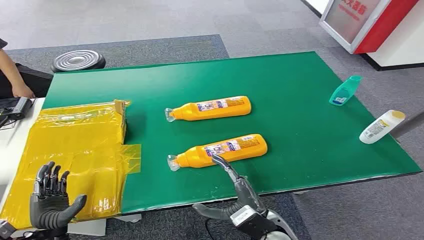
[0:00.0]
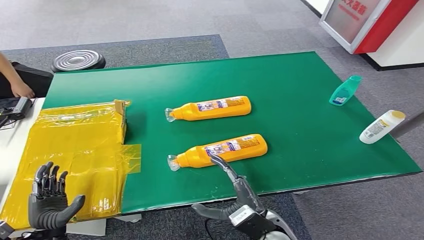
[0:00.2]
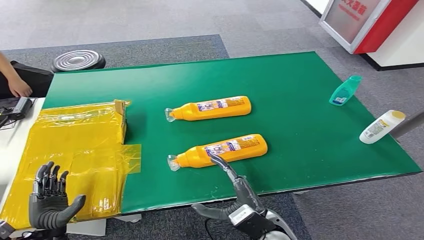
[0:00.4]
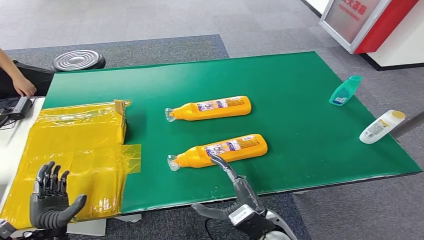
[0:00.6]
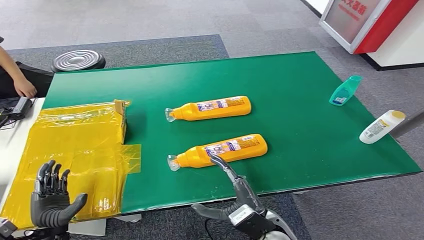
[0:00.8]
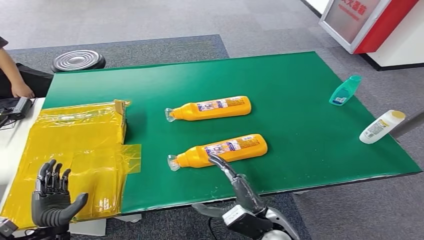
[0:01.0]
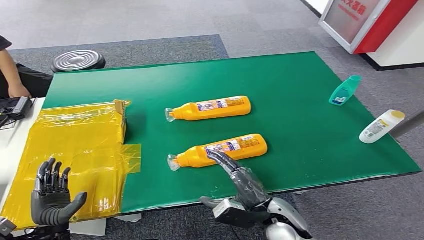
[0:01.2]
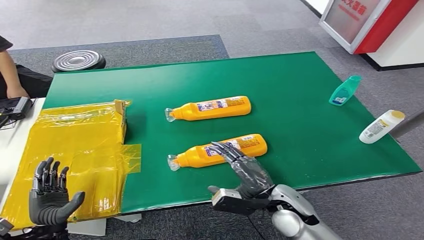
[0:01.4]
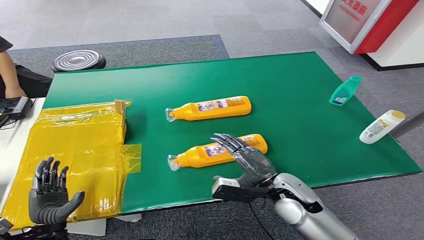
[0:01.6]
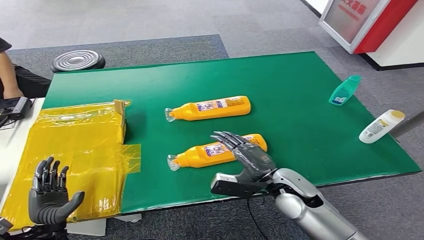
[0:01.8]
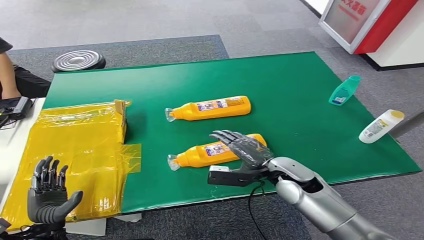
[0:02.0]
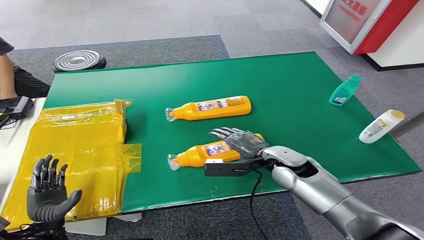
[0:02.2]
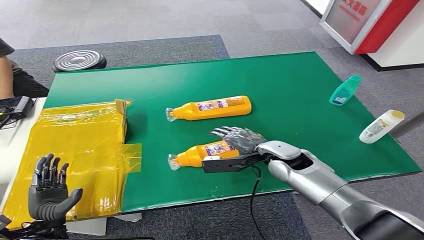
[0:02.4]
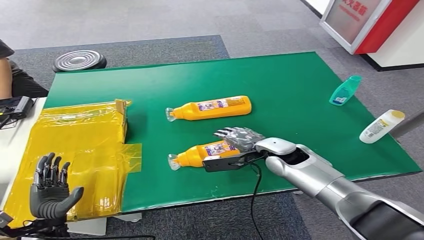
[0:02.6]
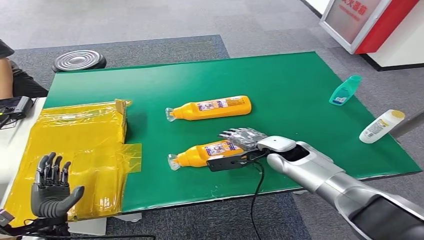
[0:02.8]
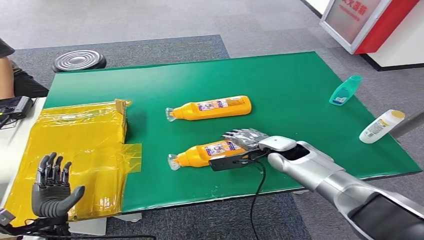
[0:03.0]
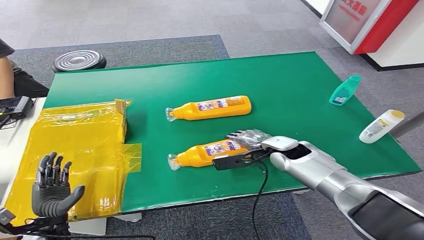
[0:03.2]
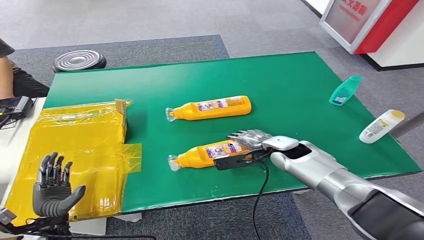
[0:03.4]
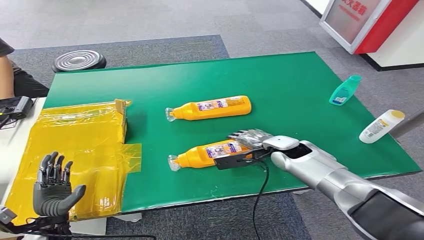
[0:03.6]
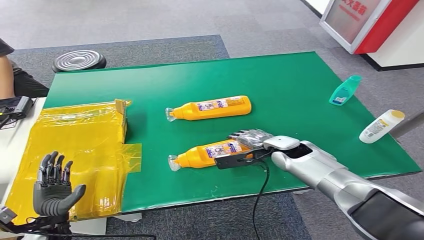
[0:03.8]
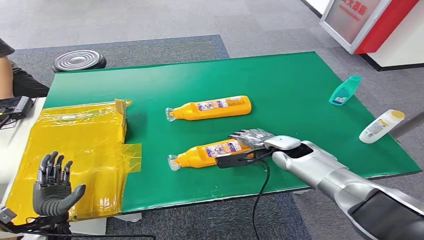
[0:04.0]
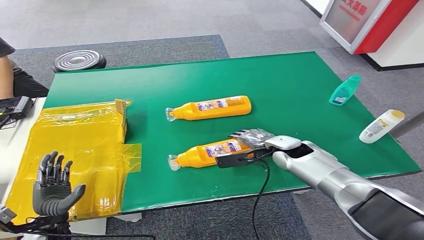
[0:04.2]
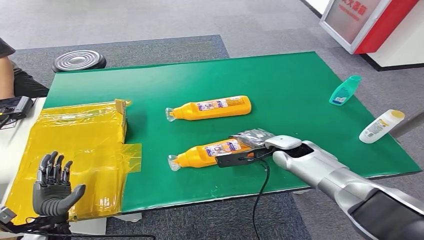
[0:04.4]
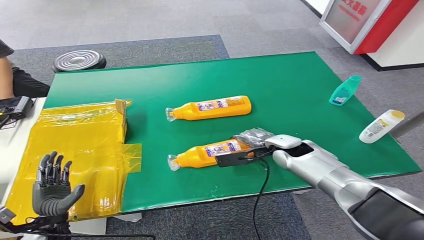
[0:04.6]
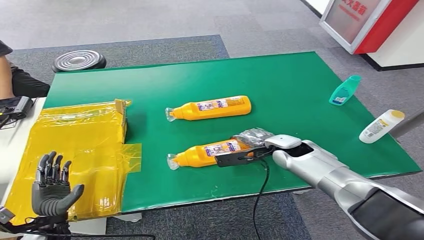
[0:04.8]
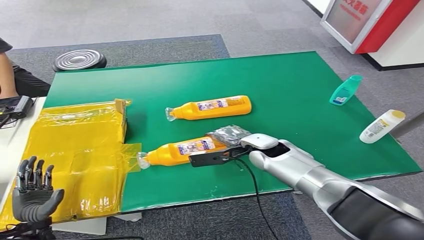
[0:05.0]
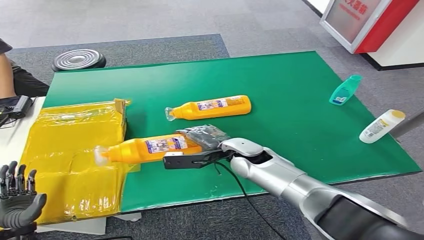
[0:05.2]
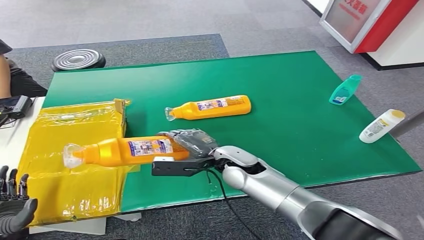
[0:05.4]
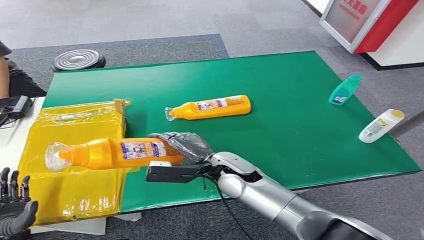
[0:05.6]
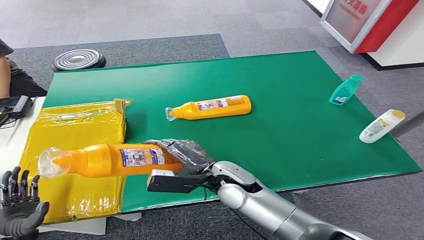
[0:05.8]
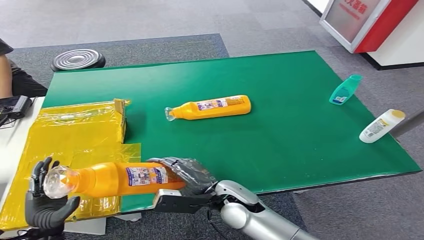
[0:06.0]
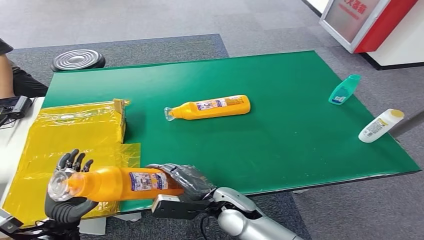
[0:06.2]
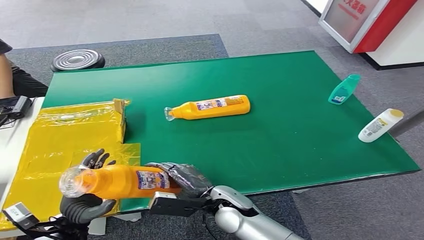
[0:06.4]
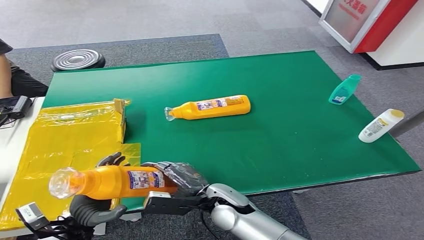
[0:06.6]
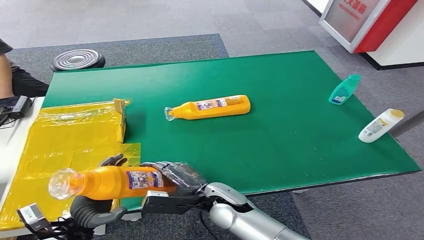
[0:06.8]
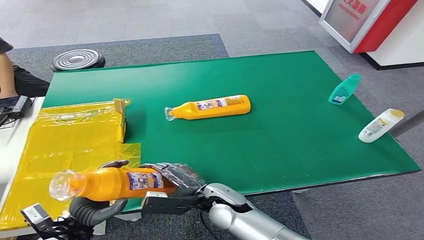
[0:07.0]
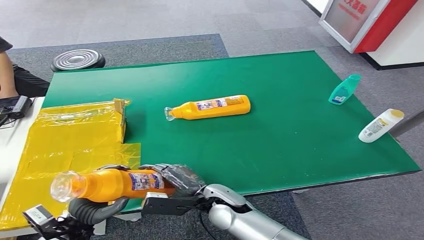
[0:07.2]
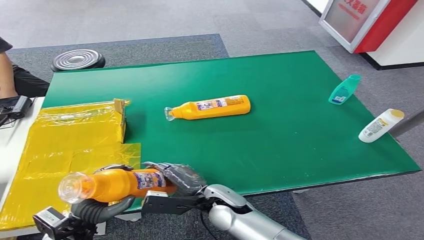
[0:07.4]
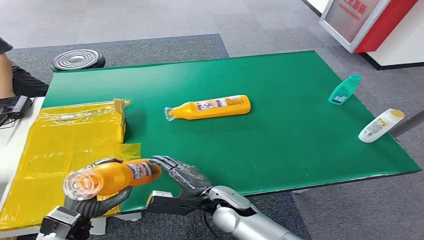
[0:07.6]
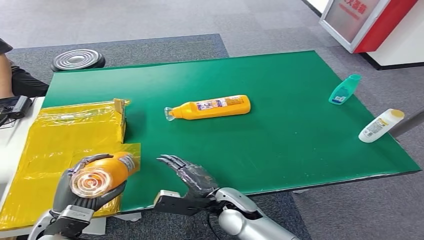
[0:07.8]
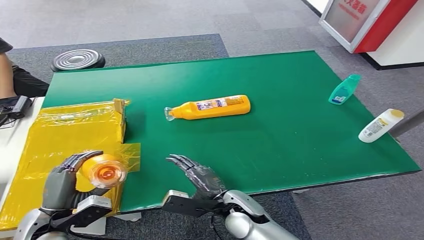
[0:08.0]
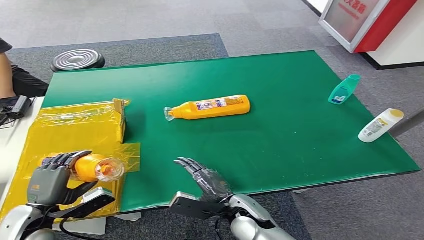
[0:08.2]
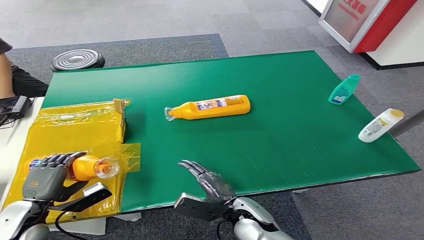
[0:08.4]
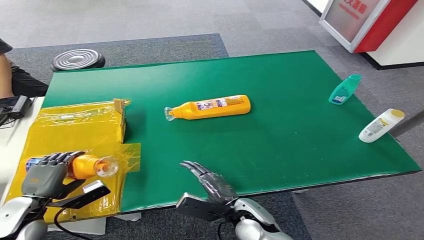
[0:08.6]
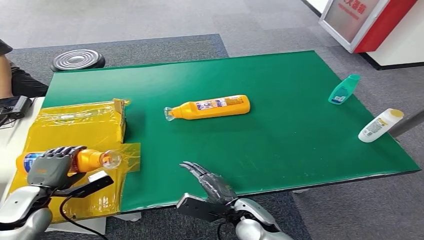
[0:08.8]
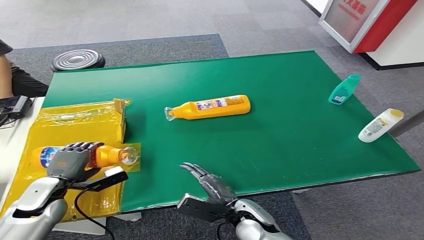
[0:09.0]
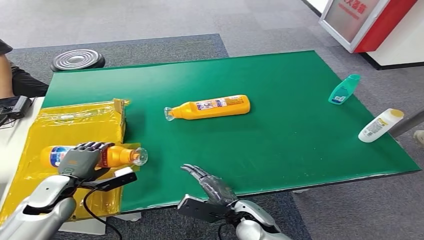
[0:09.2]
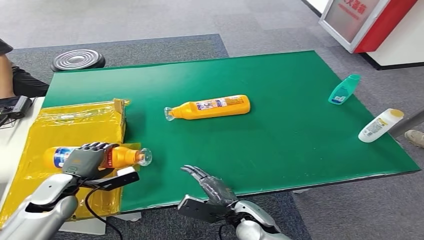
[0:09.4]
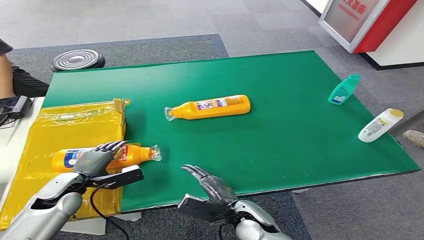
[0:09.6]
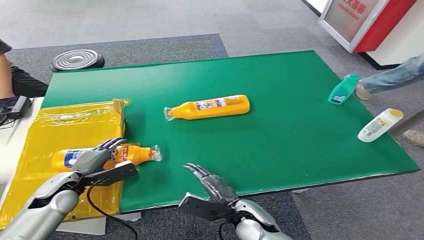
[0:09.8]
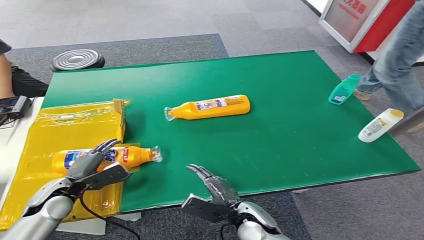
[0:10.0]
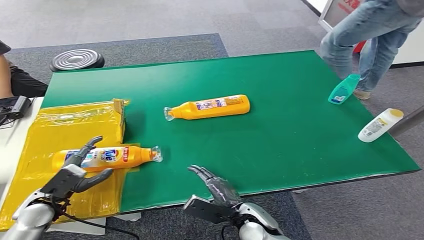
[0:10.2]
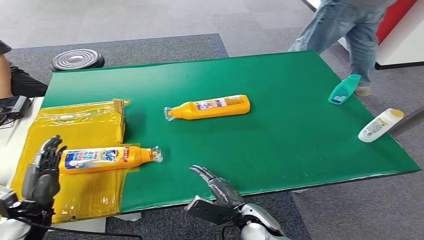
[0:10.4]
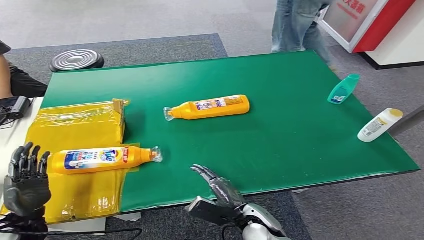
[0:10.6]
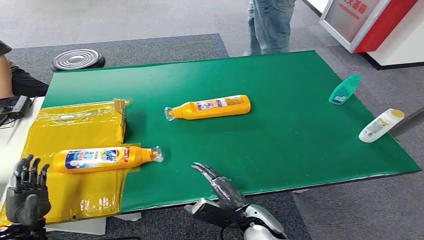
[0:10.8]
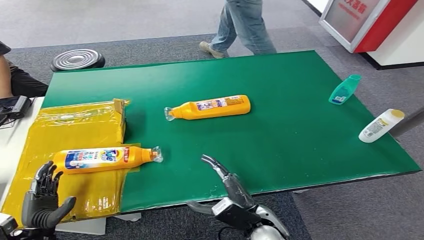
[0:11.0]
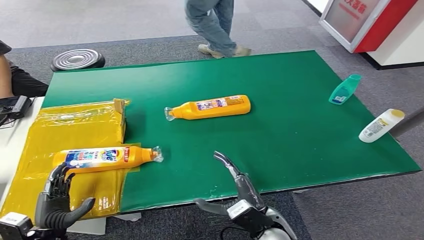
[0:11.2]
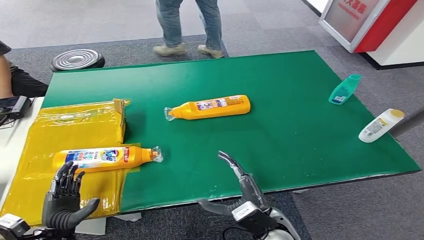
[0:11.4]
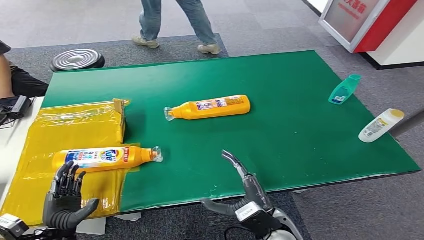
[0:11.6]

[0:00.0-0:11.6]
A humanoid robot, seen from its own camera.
Step, 0:00.0 to 0:05.2: Pick up the bottle from the table.
Step, 0:05.6 to 0:11.6: Turn the bottle to the front side.
0:01.4 to 0:02.8: The right hand goes some 15 cm forward.
0:02.8 to 0:04.4: The hands move only a little.
0:05.8 to 0:07.2: The left hand shifts some 10 cm to the right. The right hand shifts approximately 5 cm downward.
0:07.2 to 0:08.8: The left hand goes about 15 cm to the left and forward. Meanwhile the right hand shifts approximately 5 cm to the right.
0:10.2 to 0:11.6: The right hand ends up some 5 cm from where it was. Meanwhile the left hand heads backward and downward, covering roughly 10 cm.

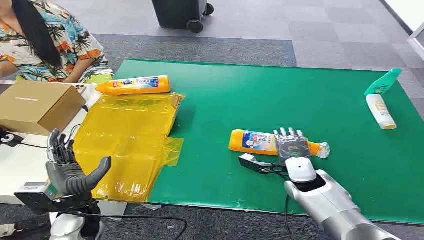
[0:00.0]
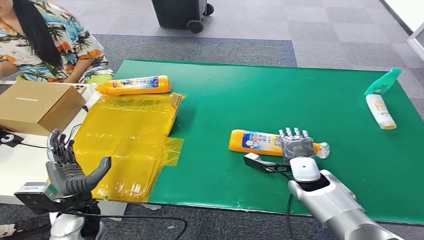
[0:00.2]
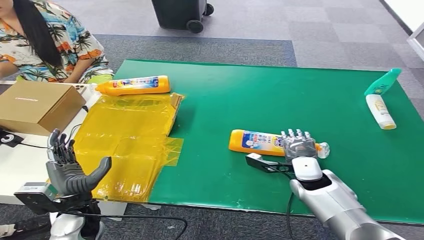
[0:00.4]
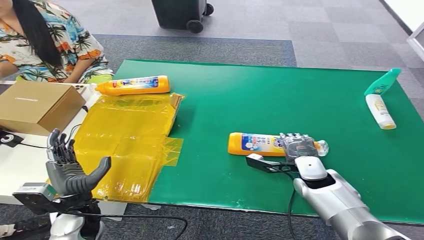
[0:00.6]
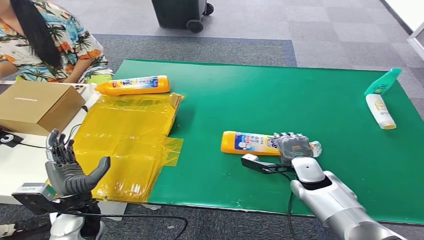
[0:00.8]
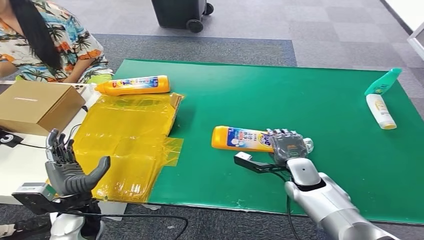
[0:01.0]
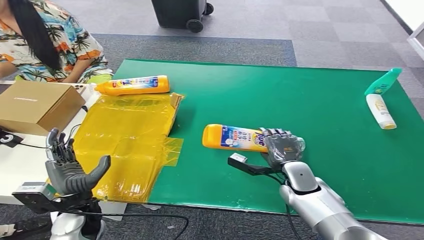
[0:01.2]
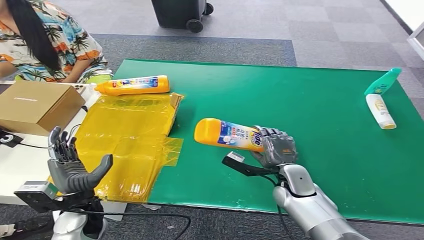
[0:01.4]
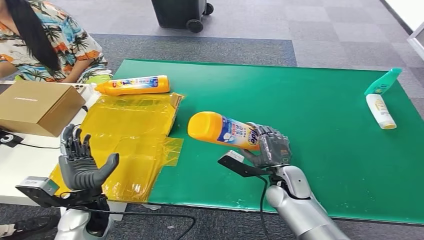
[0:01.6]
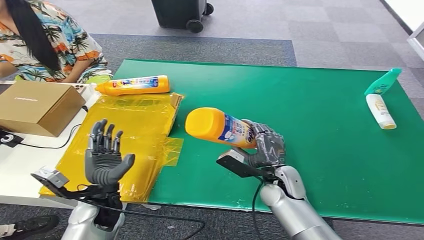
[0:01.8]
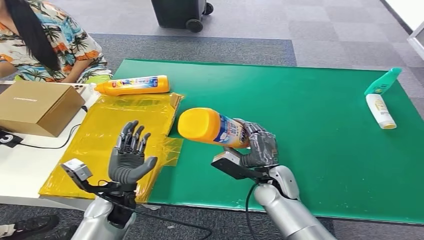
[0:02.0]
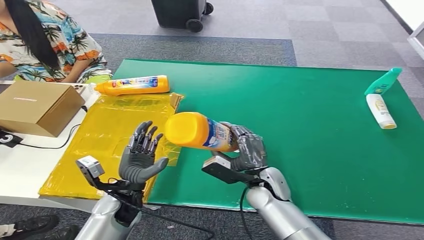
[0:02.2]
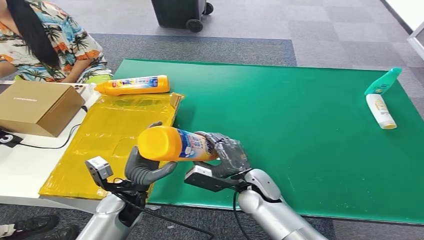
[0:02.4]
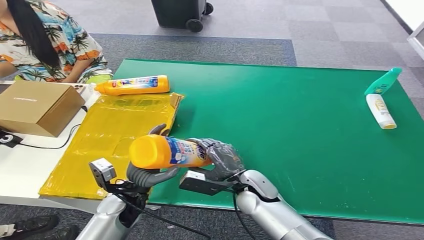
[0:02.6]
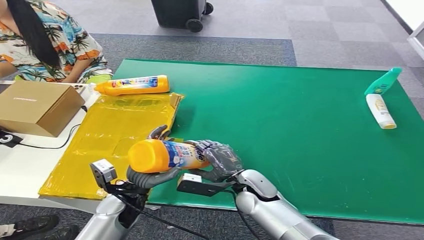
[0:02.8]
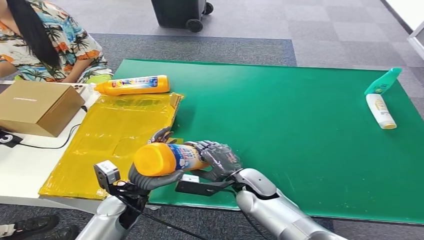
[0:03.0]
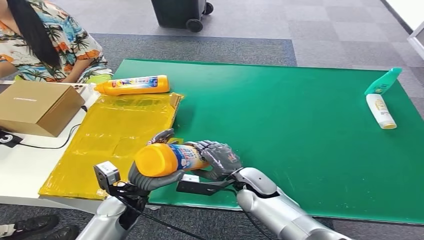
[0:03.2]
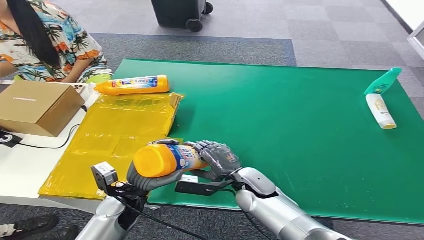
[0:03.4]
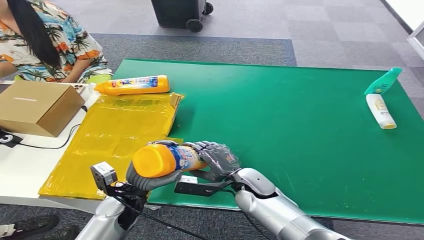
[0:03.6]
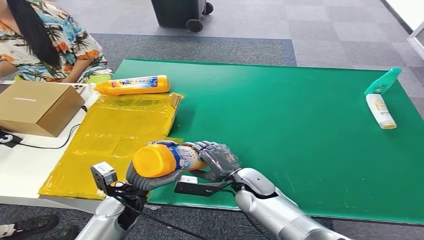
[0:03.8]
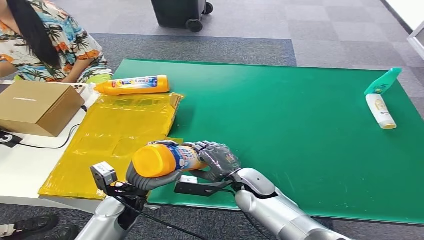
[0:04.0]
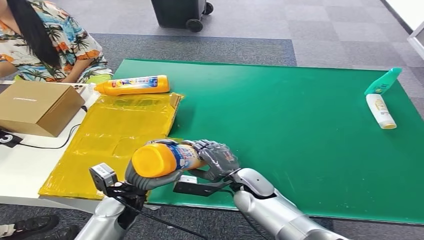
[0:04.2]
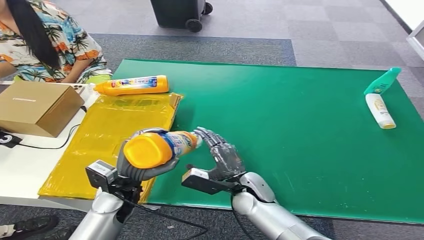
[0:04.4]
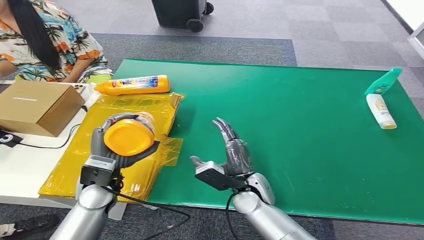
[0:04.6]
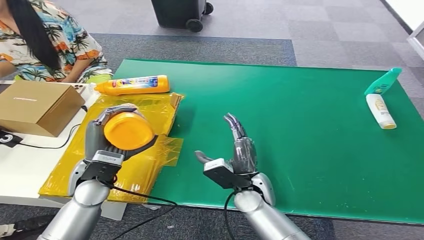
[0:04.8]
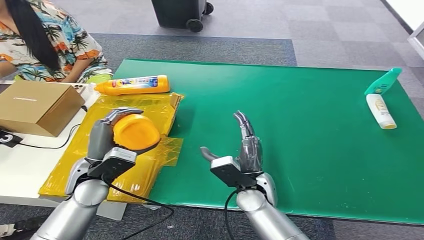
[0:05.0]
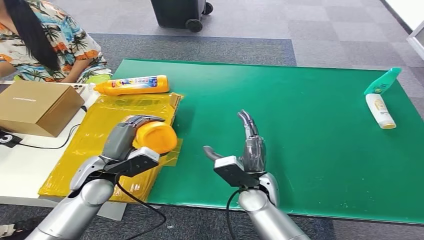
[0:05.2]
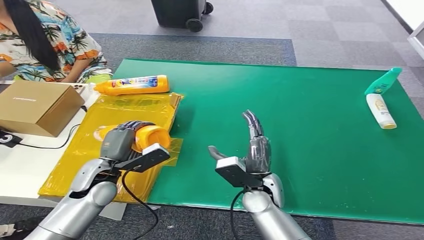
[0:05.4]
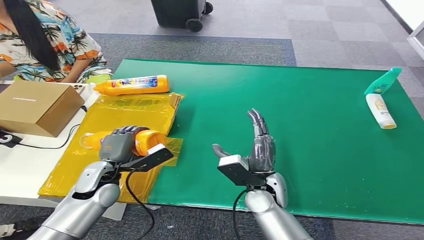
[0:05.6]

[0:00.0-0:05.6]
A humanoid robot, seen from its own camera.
Step, 0:00.0 to 0:01.6: Pick up the bottle from the table.
0:02.8 to 0:04.2: The hands stay close to where they were, moving slightly.
0:04.2 to 0:05.6: The left hand moves to the left, some 5 cm.
